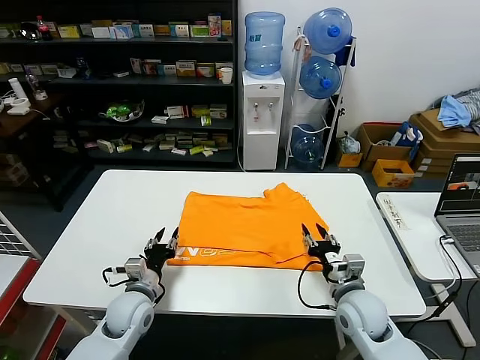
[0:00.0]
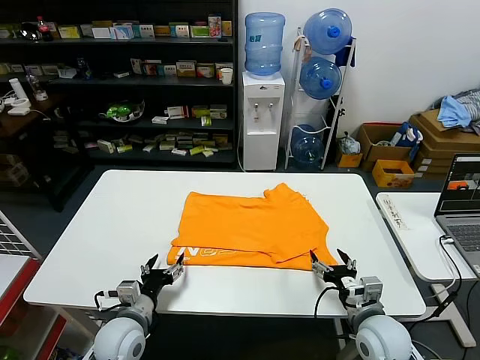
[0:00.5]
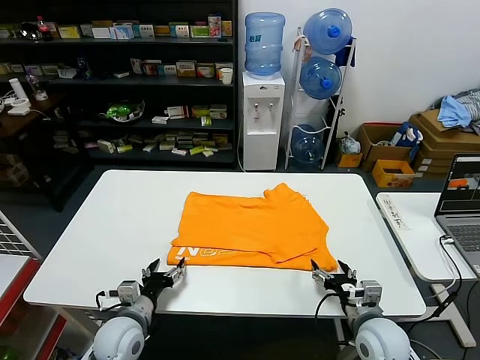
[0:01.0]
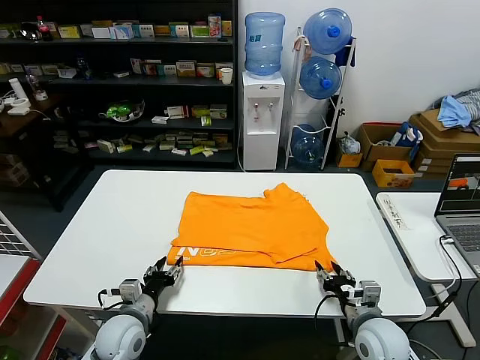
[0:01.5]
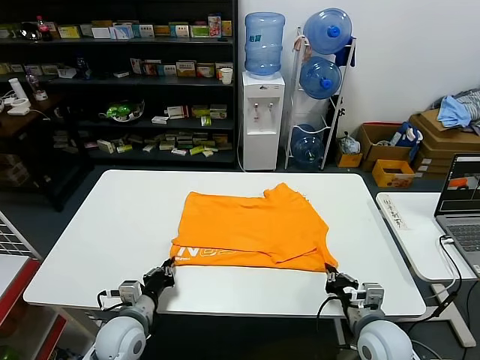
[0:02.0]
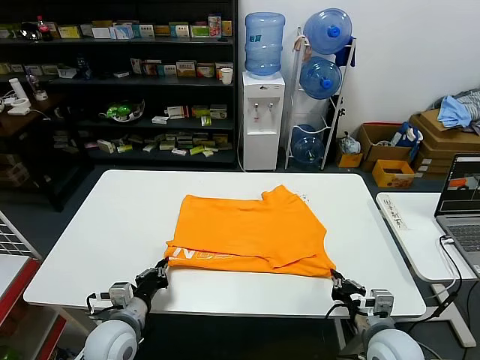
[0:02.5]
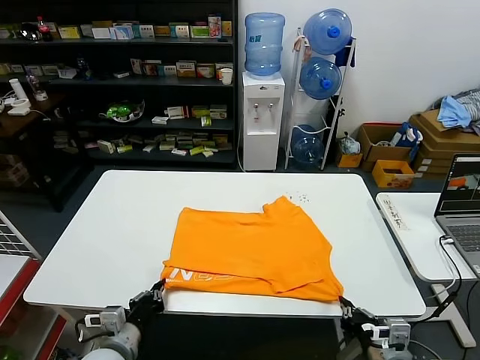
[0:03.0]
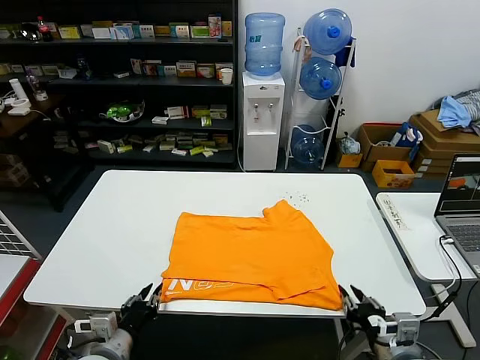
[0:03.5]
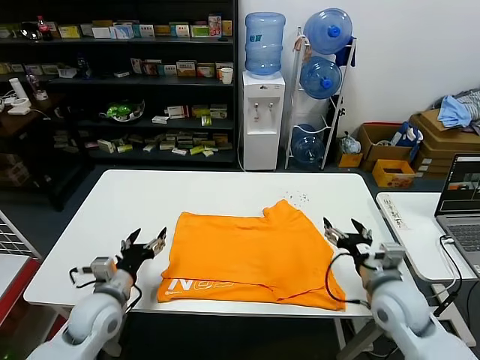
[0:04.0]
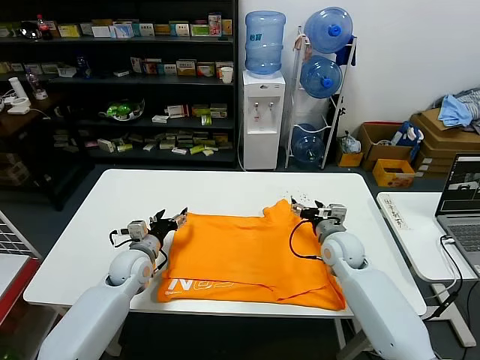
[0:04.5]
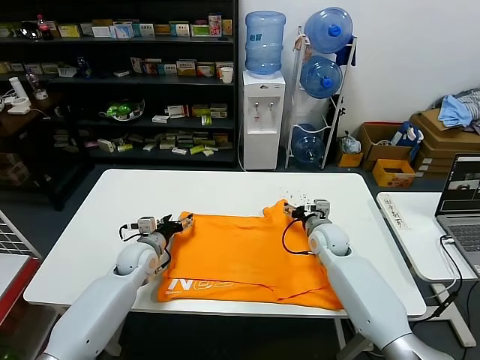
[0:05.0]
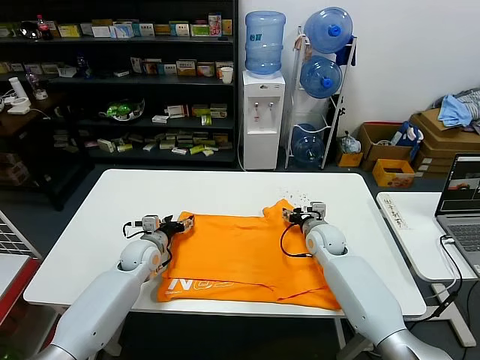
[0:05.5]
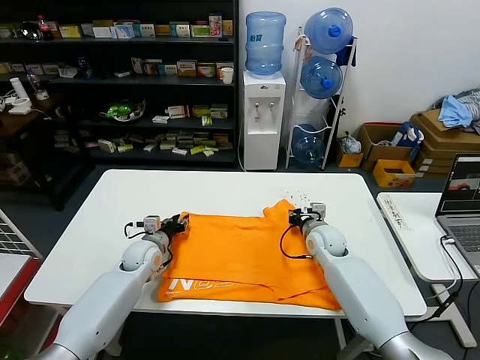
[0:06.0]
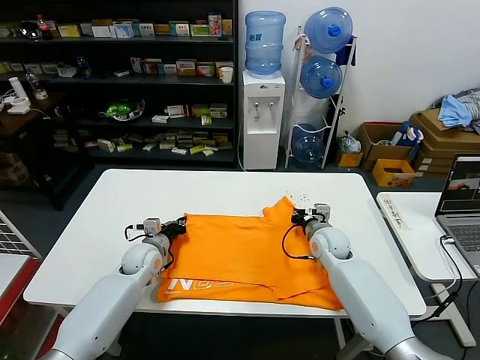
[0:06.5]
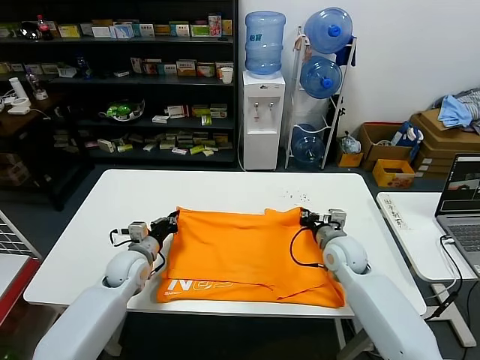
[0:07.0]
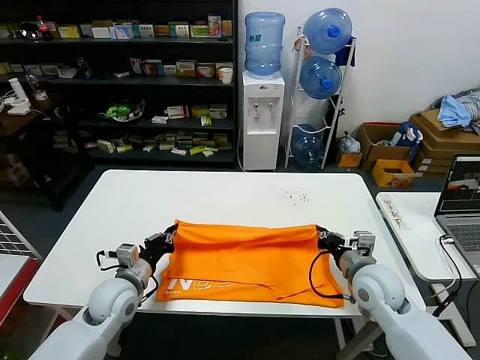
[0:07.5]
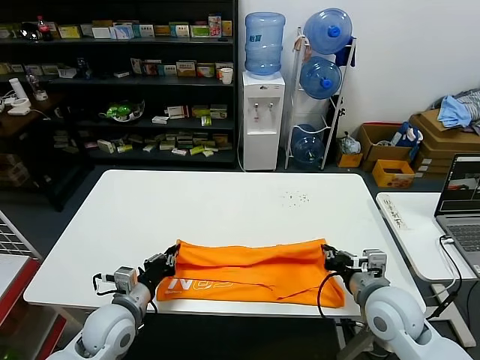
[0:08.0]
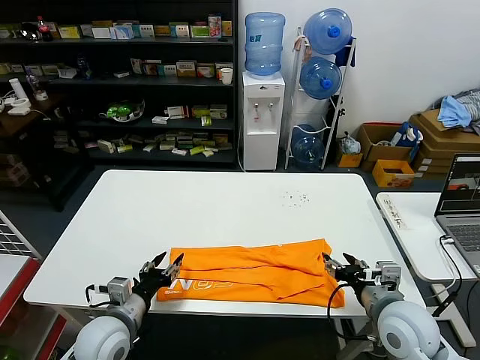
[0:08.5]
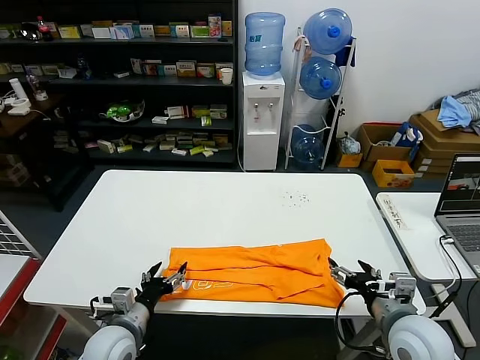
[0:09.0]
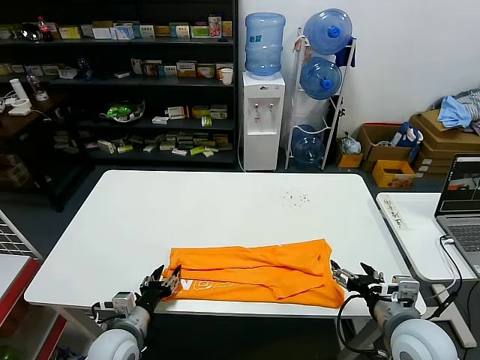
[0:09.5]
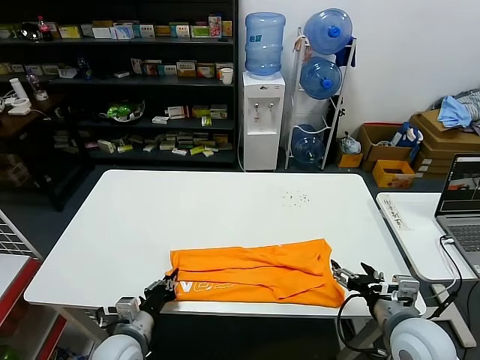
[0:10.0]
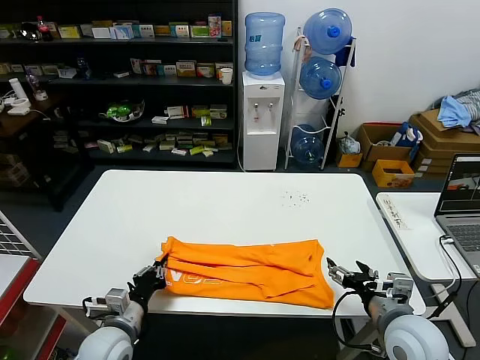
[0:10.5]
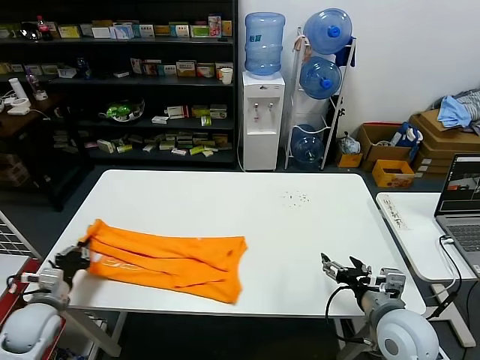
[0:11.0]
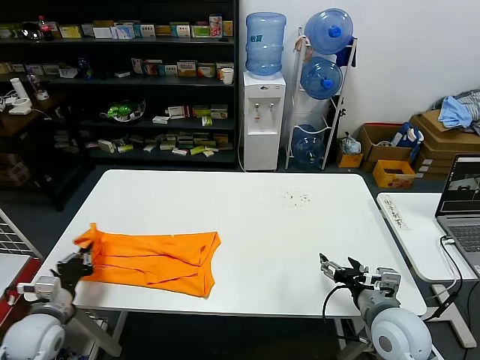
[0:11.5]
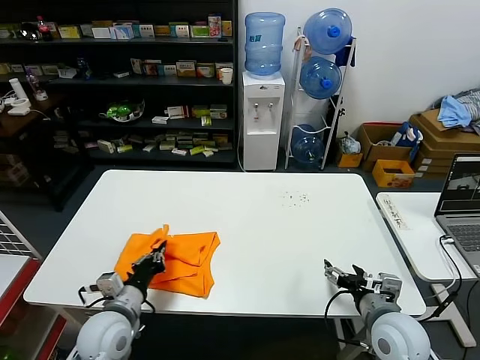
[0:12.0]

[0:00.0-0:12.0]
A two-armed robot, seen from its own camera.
Task of the whole recording: fold and organize the clothes.
Step, 0:00.0 to 0:03.0: Drag the clothes downward with both gripper.
Step, 0:03.5 to 0:06.0: use both grippers simultaneously to clamp the upper edge of the clothing fabric.
Step, 0:07.0 to 0:08.0: use both grippers to drag the upper edge of the fabric backward and fold it over the lower edge.
Step, 0:08.5 to 0:10.0: use the left gripper to clamp the left edge of the fabric.
0:00.0 to 0:02.0: The two grippers go about 5 cm backward. The right gripper closes up; the left gripper opens, then closes again.
0:02.0 to 0:04.0: The grippers both shift upward by some 10 cm. The left gripper goes backward and returns, approximately 10 cm each way, and opens; the right gripper travels backward and back again, roughly 10 cm each way, and opens its fingers.
0:04.0 to 0:06.0: Both grippers travel together forward, about 20 cm. The right gripper closes its fingers.
0:06.0 to 0:08.0: The right gripper heads backward and upward, covering about 20 cm; the left gripper travels backward by about 20 cm, and closes.
0:08.0 to 0:10.0: The left gripper moves downward, roughly 5 cm, and opens, then closes once more, while the right gripper heads backward, covering roughly 5 cm, and opens up.
0:10.0 to 0:12.0: The left gripper heads upward, covering approximately 5 cm, and moves roughly 20 cm to the left and comes back.

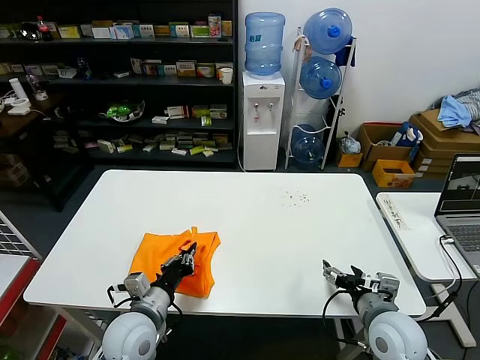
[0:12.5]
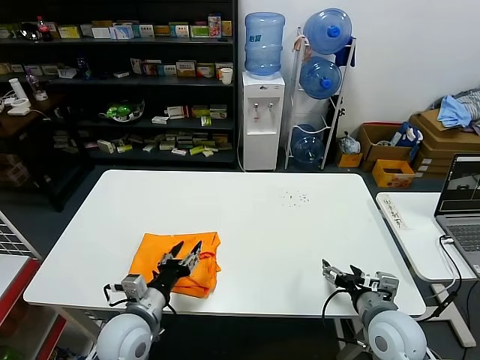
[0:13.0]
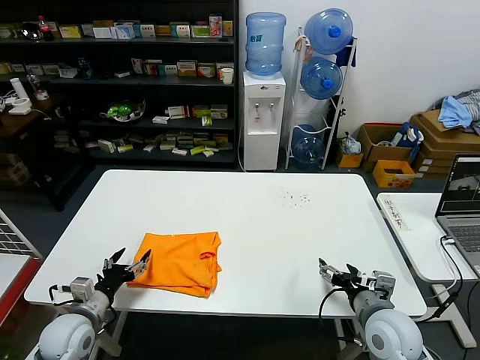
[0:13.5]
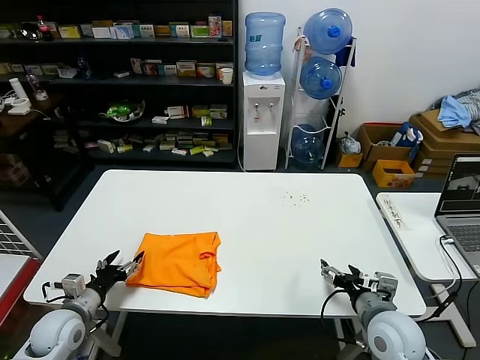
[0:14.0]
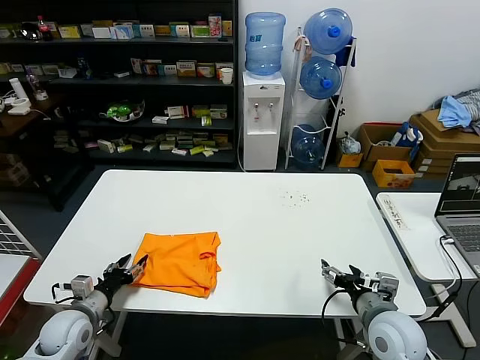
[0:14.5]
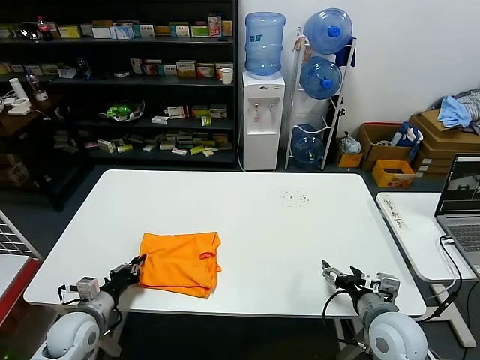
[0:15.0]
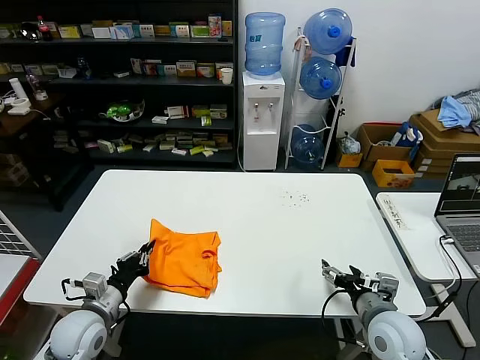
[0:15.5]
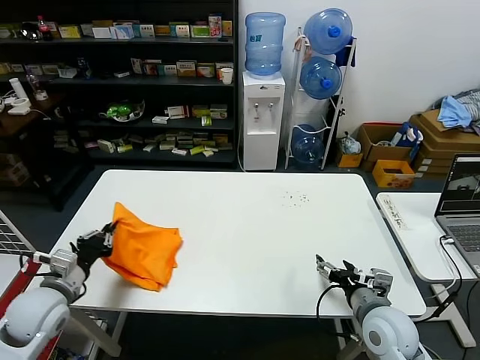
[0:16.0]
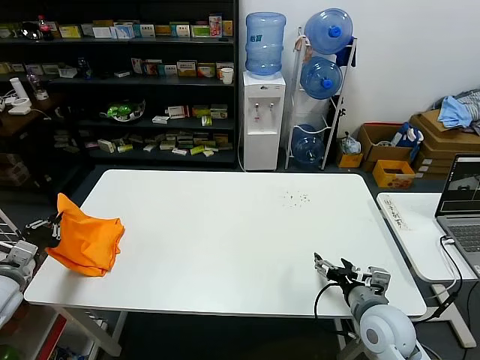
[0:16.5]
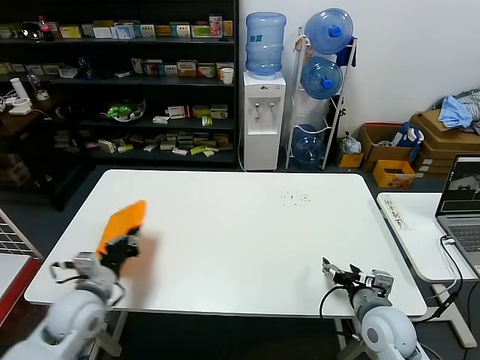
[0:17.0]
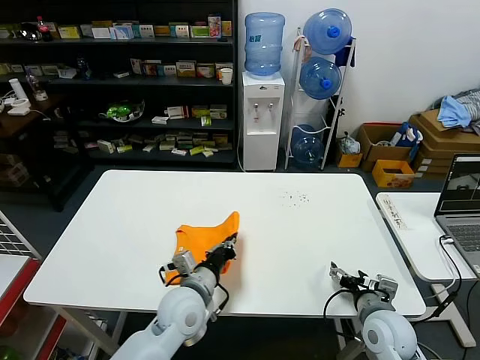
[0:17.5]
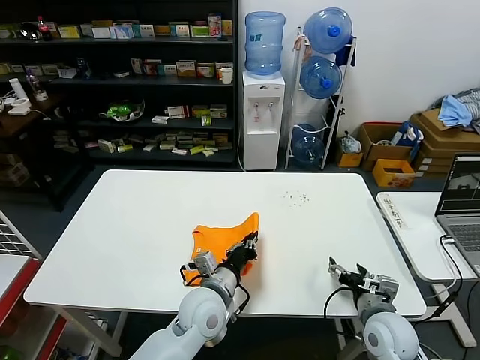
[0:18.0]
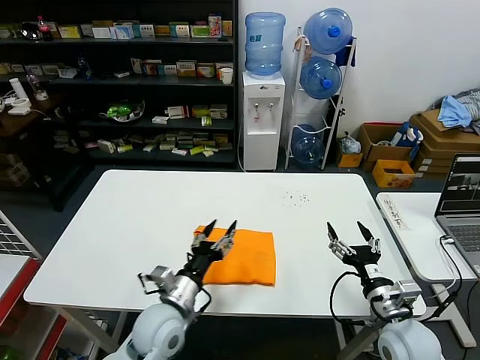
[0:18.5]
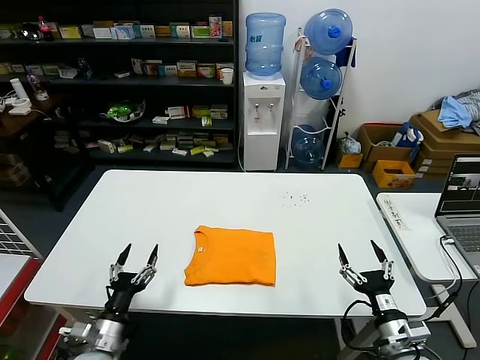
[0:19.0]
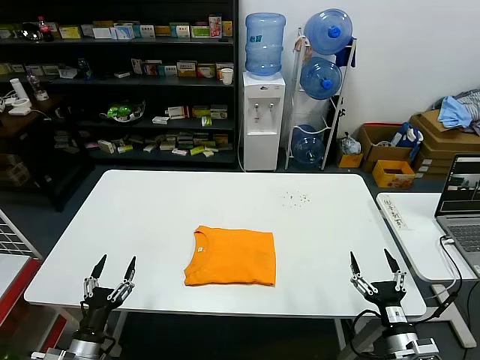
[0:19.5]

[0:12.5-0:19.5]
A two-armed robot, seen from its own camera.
Task of the whole recording: fold and organize the clothes.
Step, 0:13.5 to 0:18.0: Flip the folded clothes over with left gripper.
0:12.5 to 0:14.5: The left gripper travels to the left by about 15 cm, and opens up.
0:14.5 to 0:16.0: The left gripper is displaced upward by some 10 cm, and closes.
0:16.0 to 0:17.5: The left gripper travels to the right by roughly 25 cm.
0:17.5 to 0:19.5: The left gripper shifts some 30 cm to the left, backward and downward, and opens up. The right gripper is displaced backward by approximately 10 cm.
